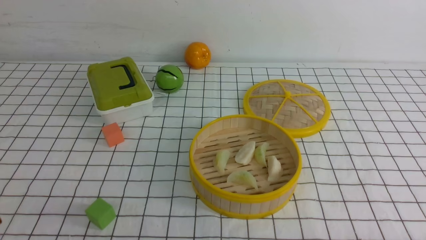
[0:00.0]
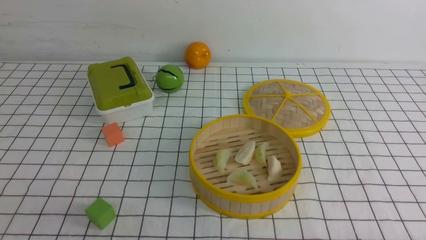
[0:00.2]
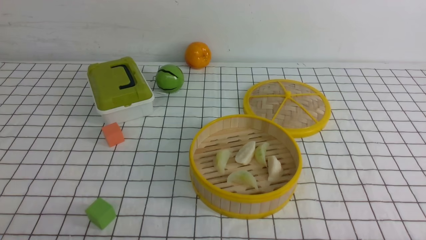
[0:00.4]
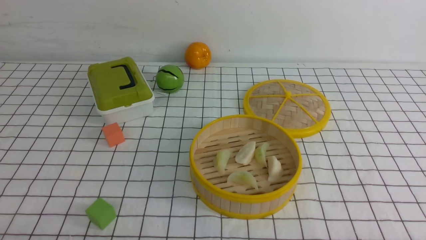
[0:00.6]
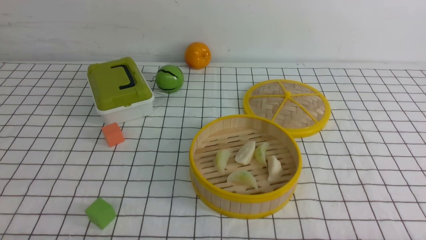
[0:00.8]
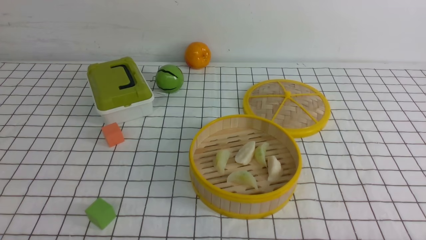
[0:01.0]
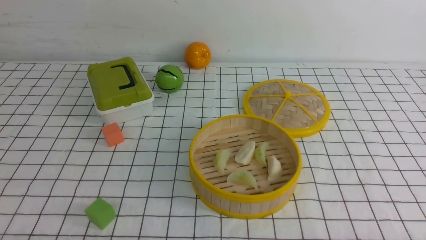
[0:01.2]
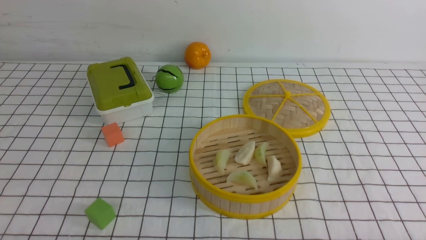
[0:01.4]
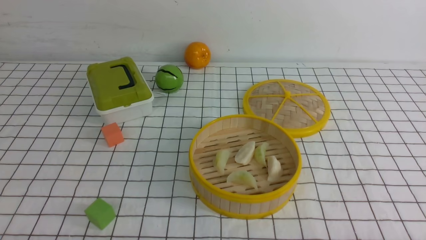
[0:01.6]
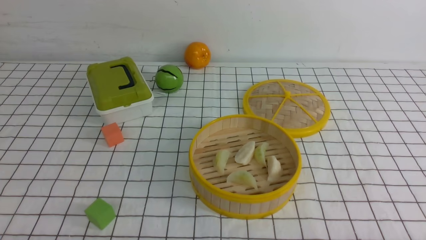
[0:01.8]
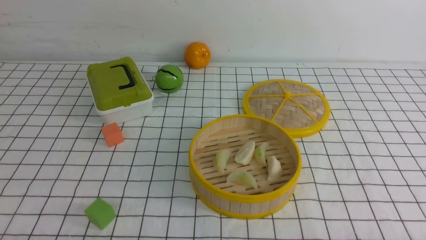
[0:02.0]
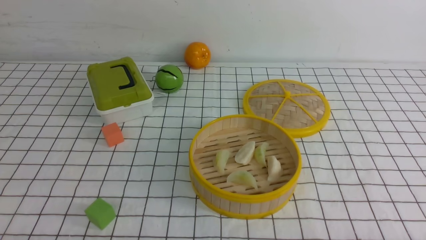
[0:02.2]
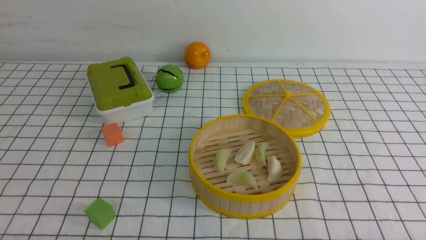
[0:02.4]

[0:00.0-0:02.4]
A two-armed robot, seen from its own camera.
Task of the whole recording: put the dumplings into the steamer on the table with the white tablecloth.
0:01.2 to 0:02.4: Both grippers stay put.
